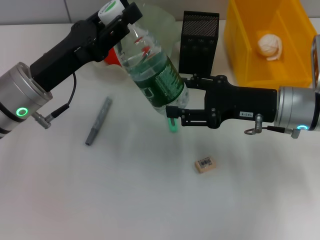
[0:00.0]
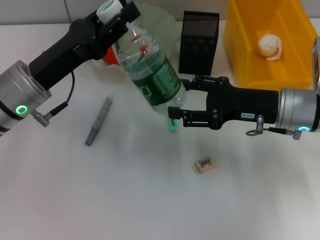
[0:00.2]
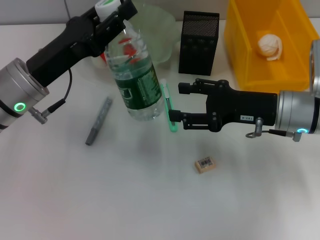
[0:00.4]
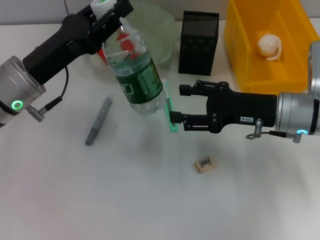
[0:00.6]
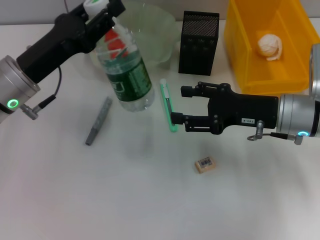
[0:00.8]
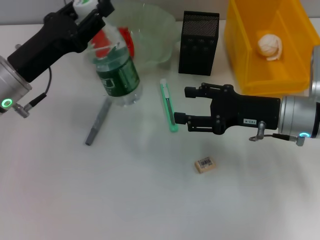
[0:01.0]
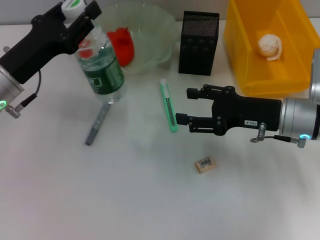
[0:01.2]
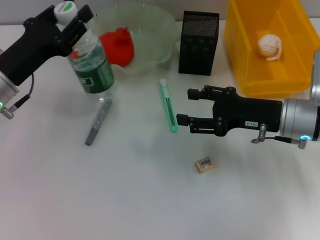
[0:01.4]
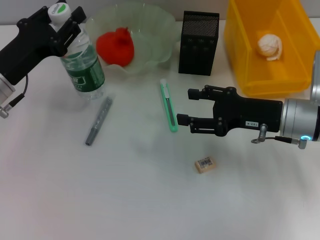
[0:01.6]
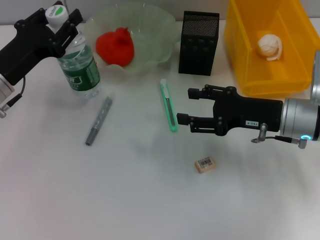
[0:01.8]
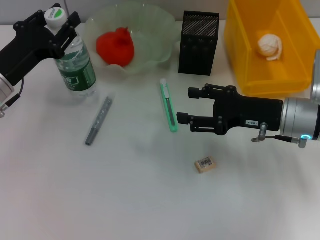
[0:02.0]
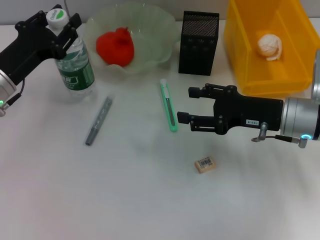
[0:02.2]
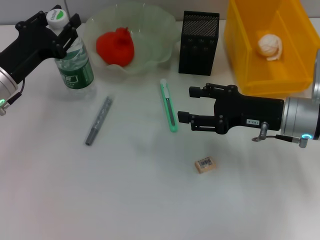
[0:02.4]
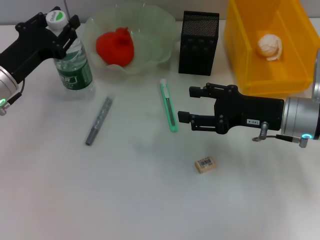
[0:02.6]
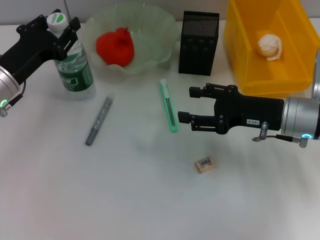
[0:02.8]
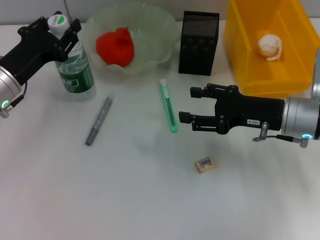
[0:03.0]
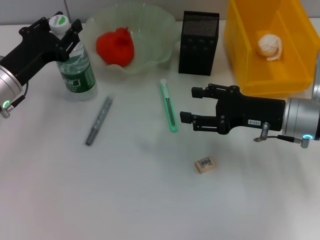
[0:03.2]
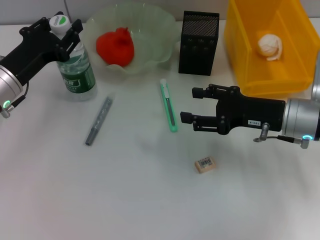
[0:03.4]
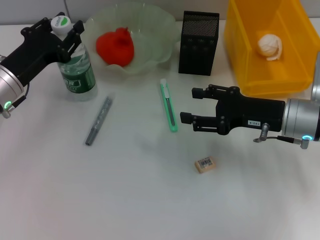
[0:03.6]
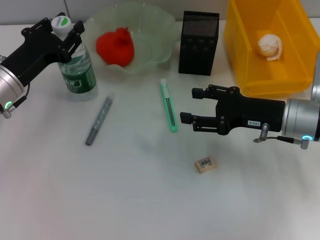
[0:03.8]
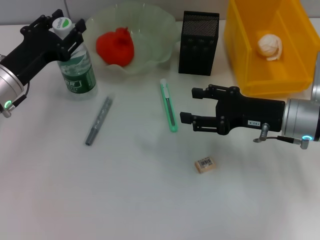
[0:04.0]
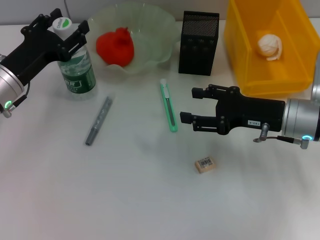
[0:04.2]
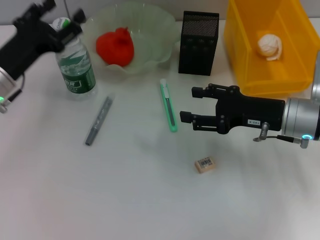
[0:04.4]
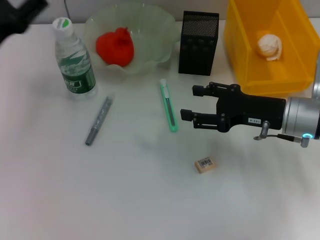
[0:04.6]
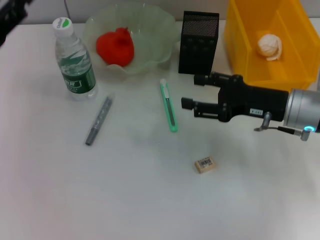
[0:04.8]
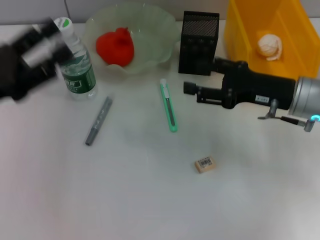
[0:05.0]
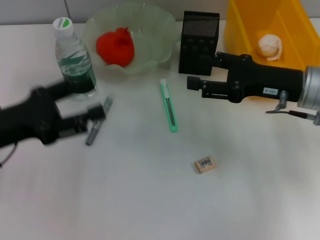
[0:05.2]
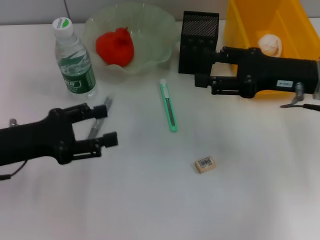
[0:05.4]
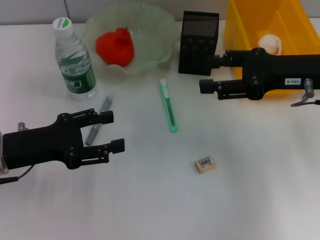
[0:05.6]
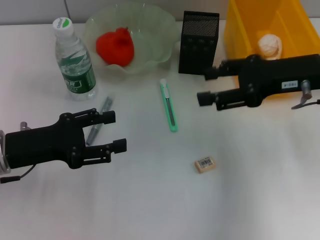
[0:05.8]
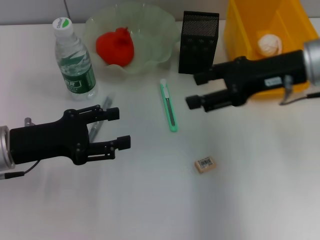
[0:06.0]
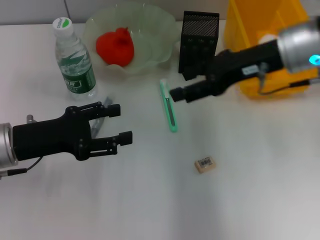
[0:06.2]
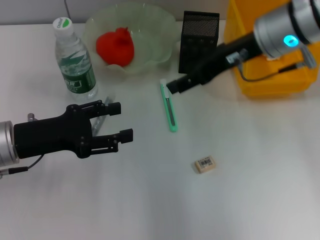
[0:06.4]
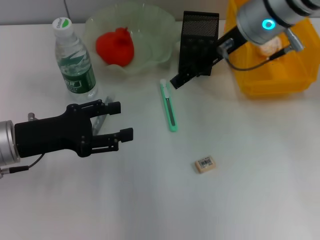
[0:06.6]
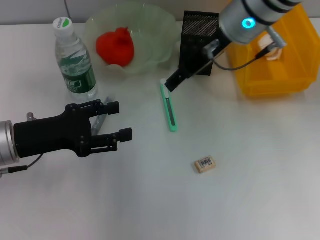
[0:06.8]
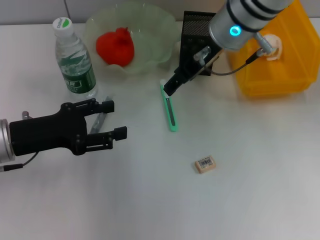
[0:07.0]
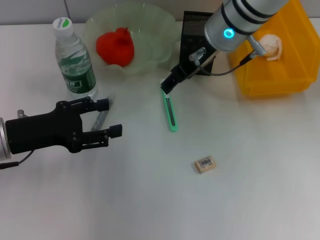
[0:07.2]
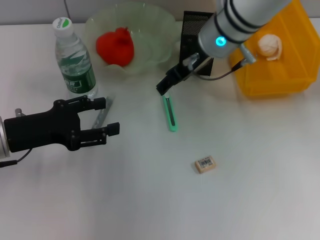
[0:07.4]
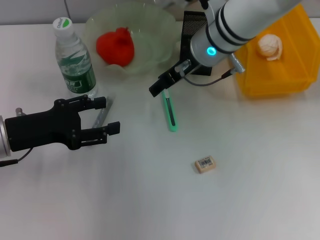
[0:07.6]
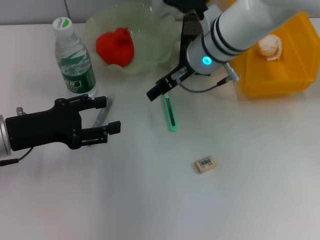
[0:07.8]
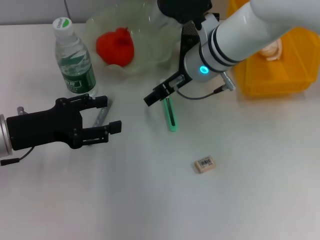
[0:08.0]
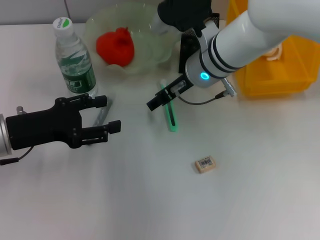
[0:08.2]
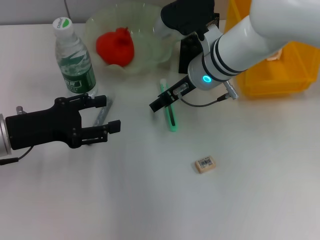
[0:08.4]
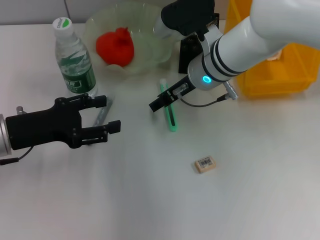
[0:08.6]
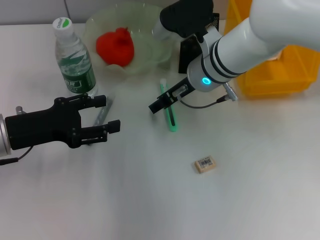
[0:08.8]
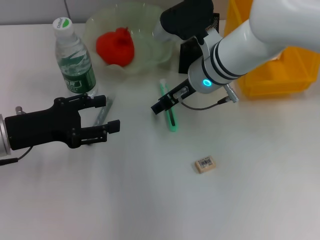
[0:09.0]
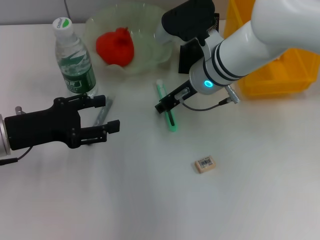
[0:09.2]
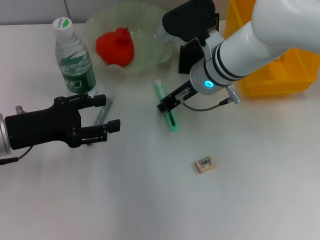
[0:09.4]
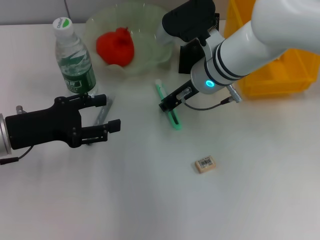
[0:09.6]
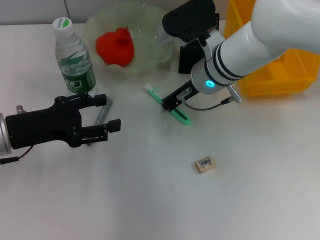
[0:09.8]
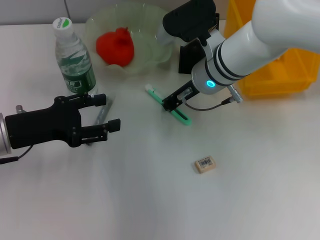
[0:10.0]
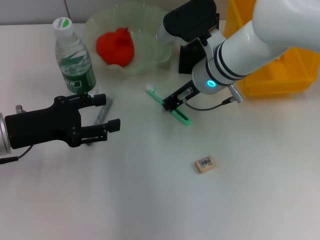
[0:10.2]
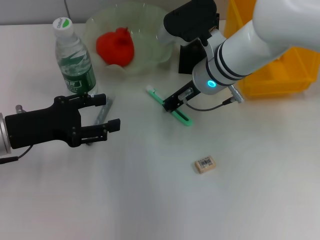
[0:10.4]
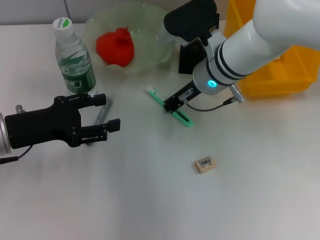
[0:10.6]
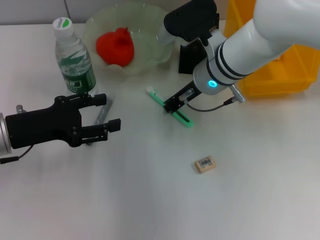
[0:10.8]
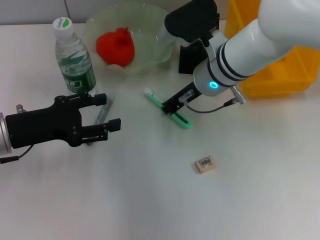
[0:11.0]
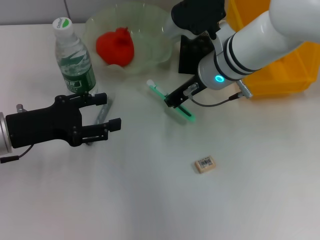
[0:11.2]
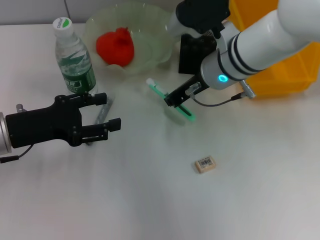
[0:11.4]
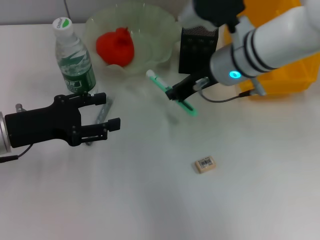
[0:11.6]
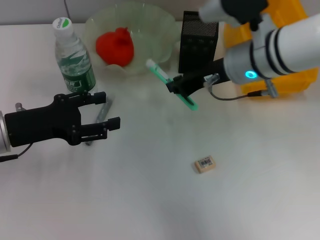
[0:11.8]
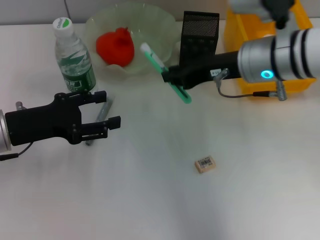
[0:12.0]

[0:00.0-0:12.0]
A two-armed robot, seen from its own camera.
Step, 0:00.0 to 0:04.2: Place the water bottle on the table with the left hand.
Step, 0:04.4 to 0:09.6: Grab the blue utility knife with the right hand.
0:00.0 to 0:01.6: The left gripper heads to the left, covering some 5 cm.
0:01.6 to 0:03.0: The grippers make only small movements.
0:03.0 to 0:04.4: The left gripper opens.
0:04.4 to 0:06.0: The left gripper travels backward by roughly 5 cm; the right gripper shifts roughly 10 cm upward.
0:06.0 to 0:07.6: The right gripper goes approximately 15 cm to the left and forward.
0:07.6 to 0:09.0: The grippers move only a little.
0:09.0 to 0:10.4: The right gripper closes up.
0:10.4 to 0:12.0: The right gripper is displaced to the right and upward by some 10 cm.

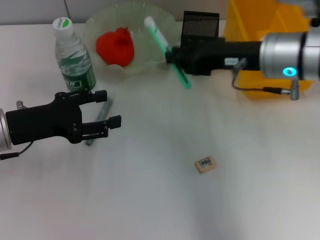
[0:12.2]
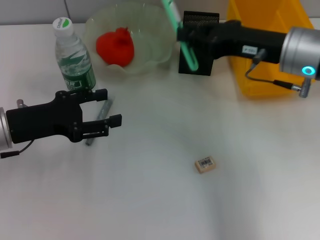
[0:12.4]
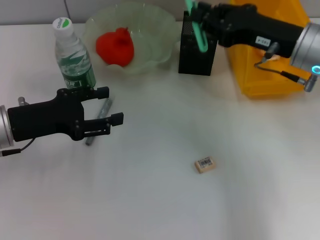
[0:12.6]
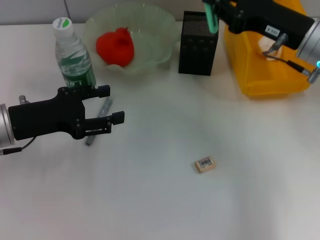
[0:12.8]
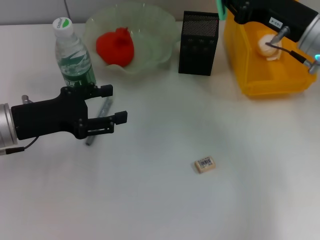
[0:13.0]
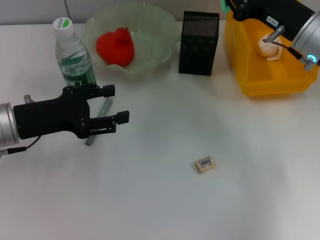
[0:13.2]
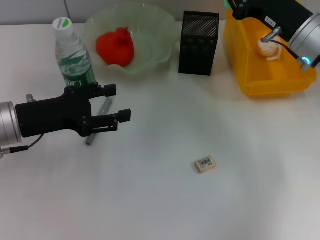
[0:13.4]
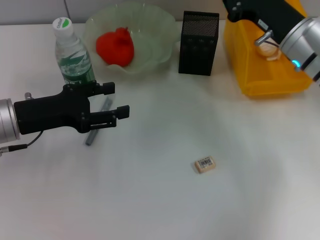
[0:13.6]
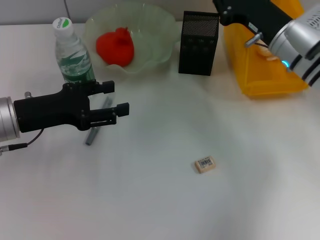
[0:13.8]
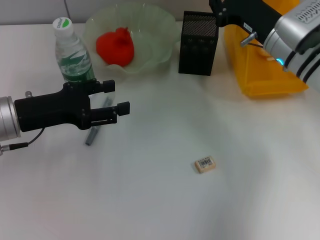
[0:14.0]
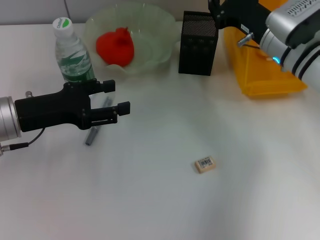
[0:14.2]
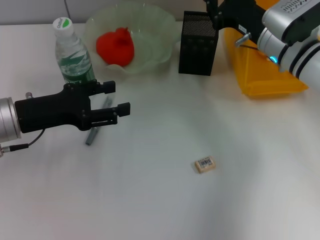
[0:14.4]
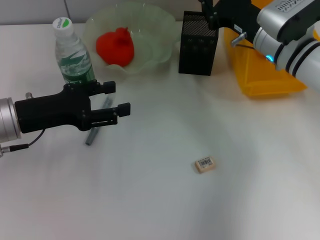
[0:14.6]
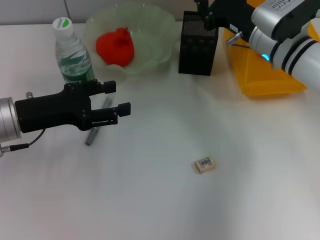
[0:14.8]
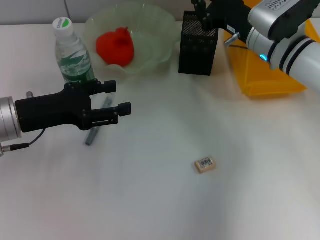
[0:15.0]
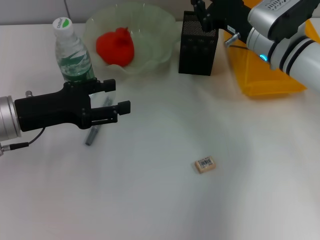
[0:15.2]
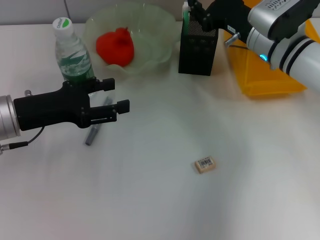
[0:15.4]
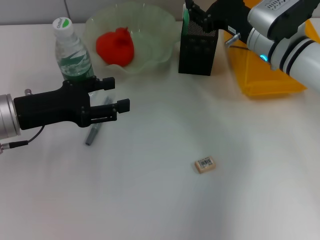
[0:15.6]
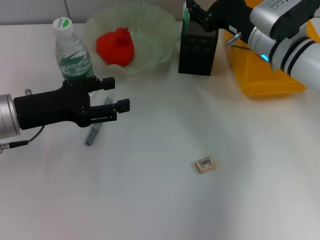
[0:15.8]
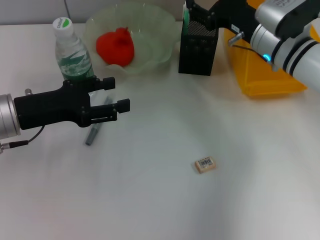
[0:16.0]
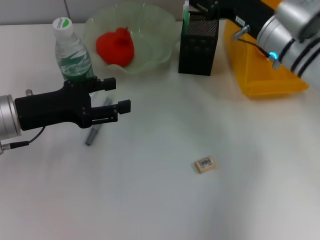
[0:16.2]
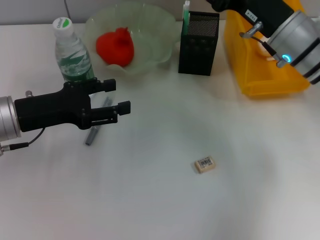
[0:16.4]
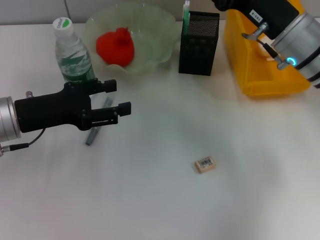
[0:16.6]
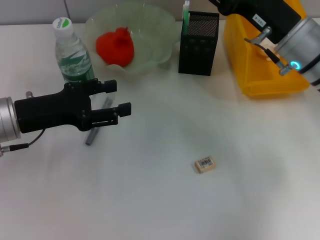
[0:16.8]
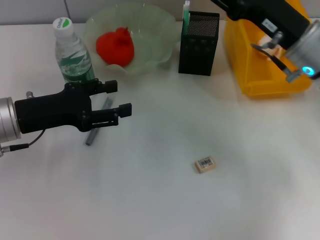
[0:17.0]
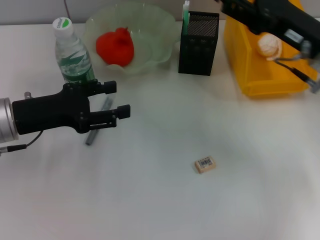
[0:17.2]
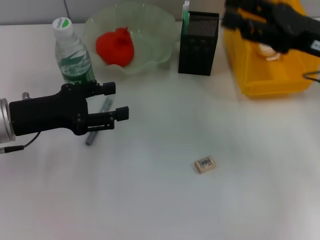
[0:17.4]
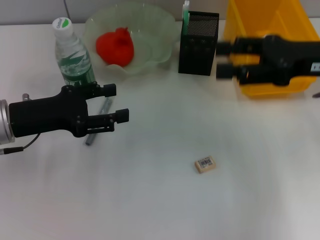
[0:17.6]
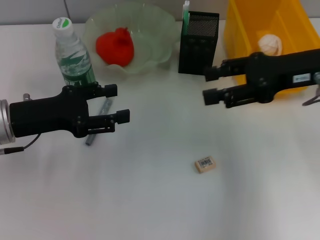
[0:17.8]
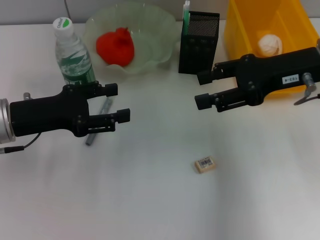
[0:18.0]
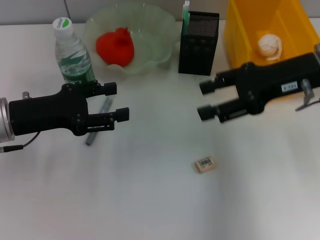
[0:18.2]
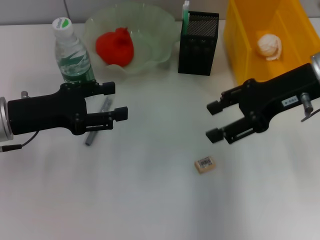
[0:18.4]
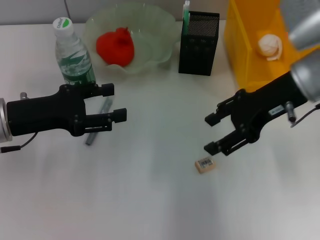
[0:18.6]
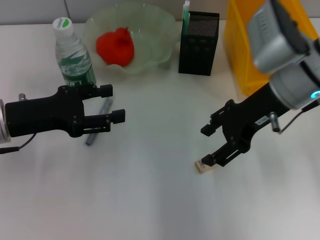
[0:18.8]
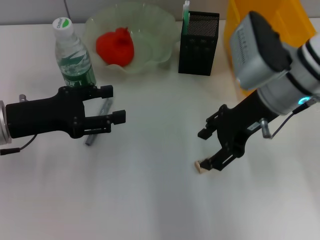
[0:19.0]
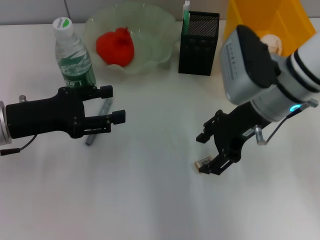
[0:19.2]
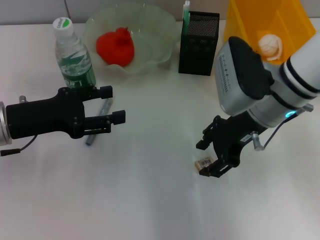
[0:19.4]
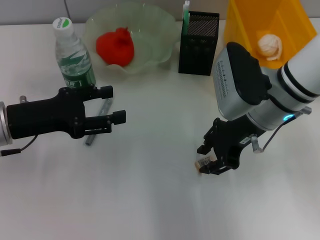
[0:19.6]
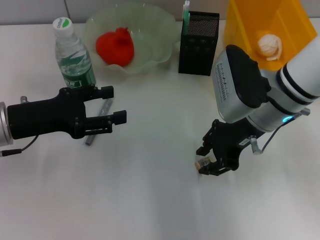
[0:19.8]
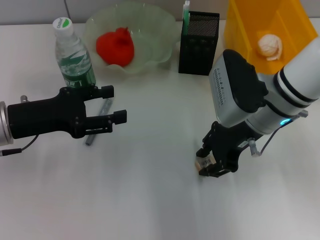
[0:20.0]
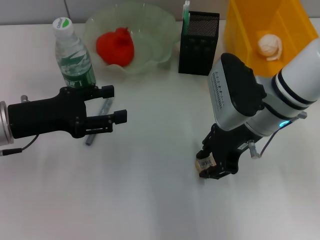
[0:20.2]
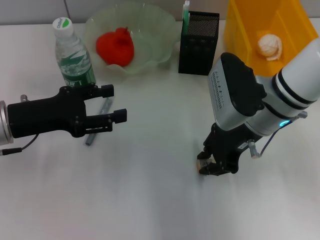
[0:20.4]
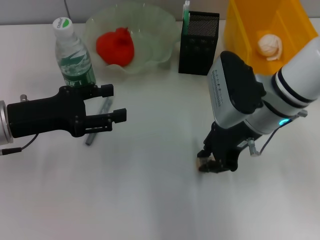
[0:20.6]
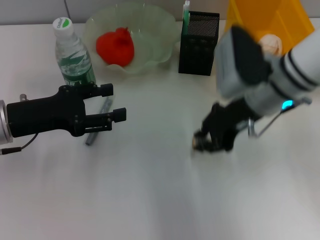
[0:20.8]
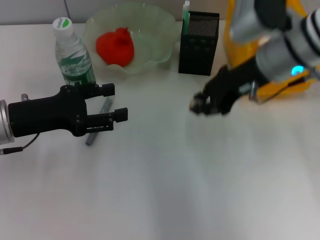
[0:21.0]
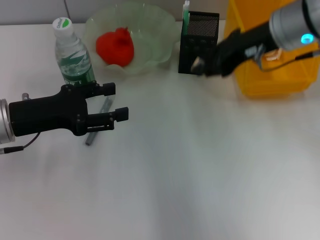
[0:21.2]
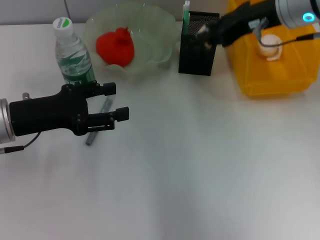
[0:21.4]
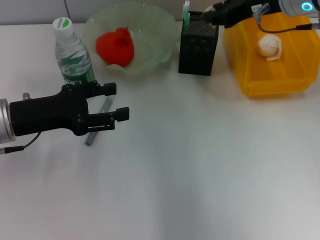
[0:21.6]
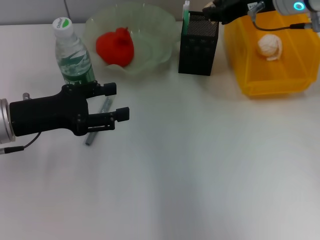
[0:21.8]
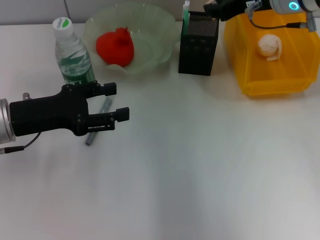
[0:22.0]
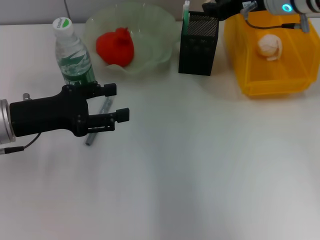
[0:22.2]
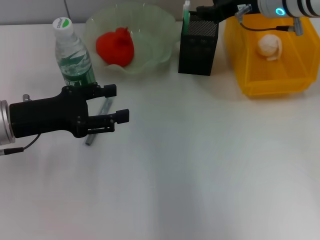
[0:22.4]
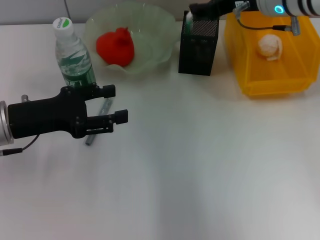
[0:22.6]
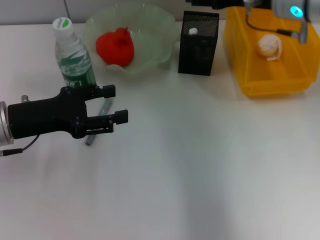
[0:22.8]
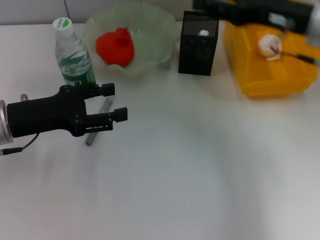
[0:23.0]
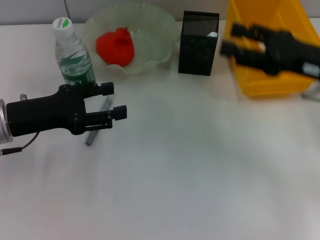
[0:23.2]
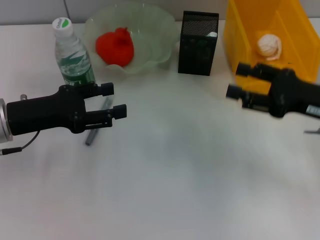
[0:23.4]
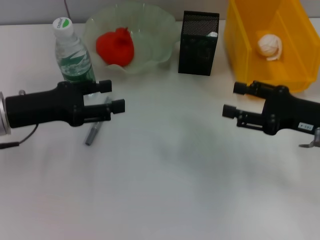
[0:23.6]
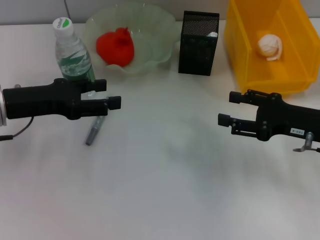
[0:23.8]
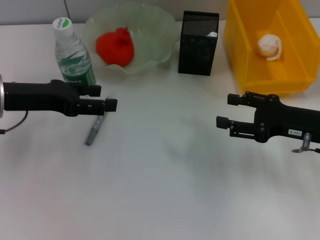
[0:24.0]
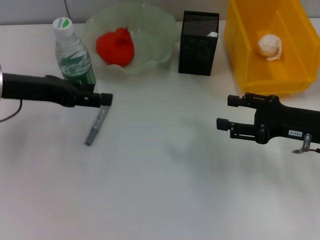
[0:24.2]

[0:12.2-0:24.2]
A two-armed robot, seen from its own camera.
Step, 0:12.2 to 0:15.6: Place the blue utility knife into the pen holder with the right hand.
Step, 0:15.8 to 0:20.2: Grab the eraser with the right hand.
Step, 0:20.4 to 0:22.8: Put the eraser into the pen holder with the right hand.
0:12.2 to 0:13.8: The right gripper moves downward, about 5 cm.
0:13.8 to 0:15.2: The grippers make only small movements.
0:15.2 to 0:16.6: The right gripper ends up some 5 cm from where it was, and opens up.
0:16.6 to 0:18.2: The right gripper ends up approximately 5 cm from where it was.
0:18.2 to 0:19.8: The right gripper goes roughly 10 cm to the left and downward, and closes.
0:19.8 to 0:21.2: The right gripper travels upward by approximately 10 cm.
0:21.2 to 0:22.6: The right gripper heads forward, covering approximately 5 cm.
0:22.6 to 0:24.2: The left gripper heads upward, covering about 5 cm; the right gripper moves backward, downward and to the right, some 20 cm, and opens up.
